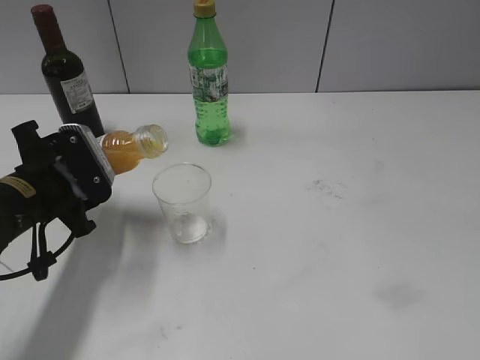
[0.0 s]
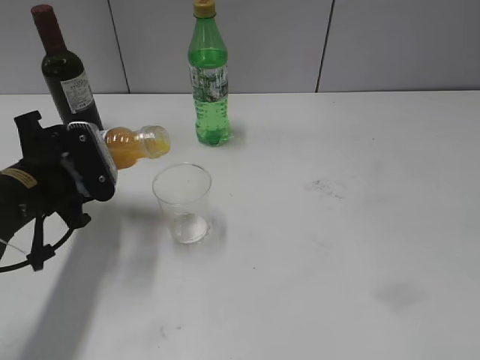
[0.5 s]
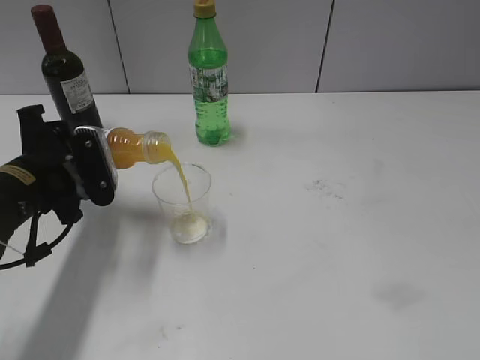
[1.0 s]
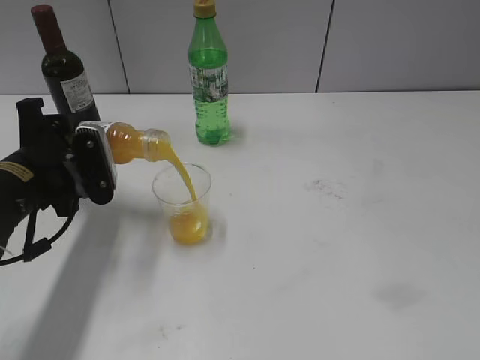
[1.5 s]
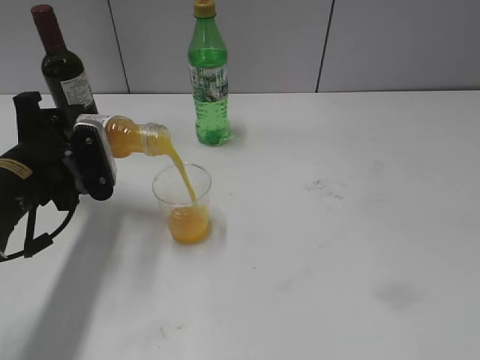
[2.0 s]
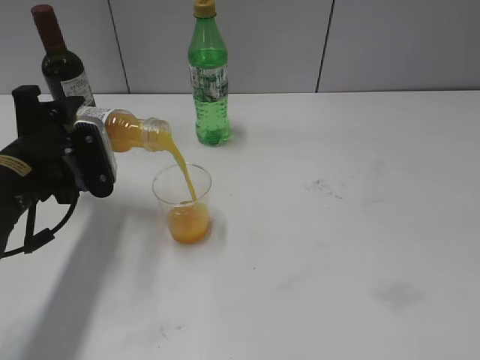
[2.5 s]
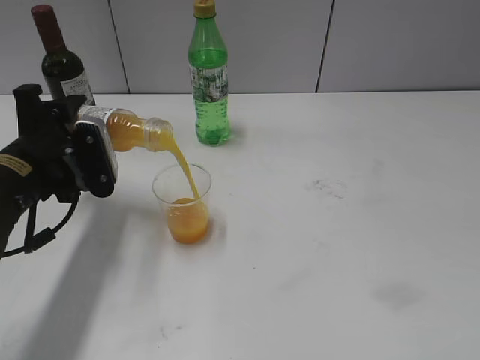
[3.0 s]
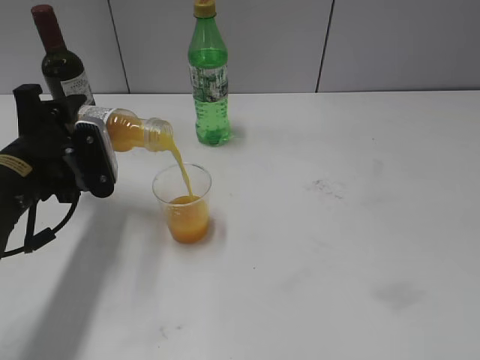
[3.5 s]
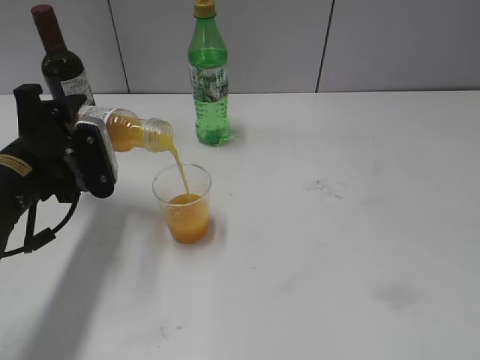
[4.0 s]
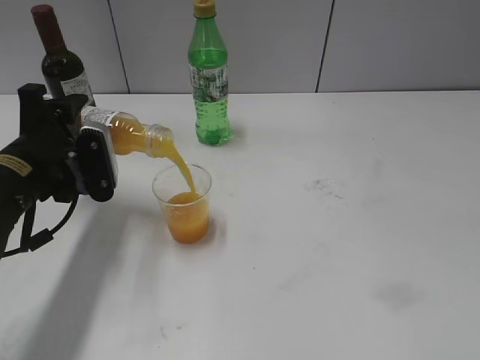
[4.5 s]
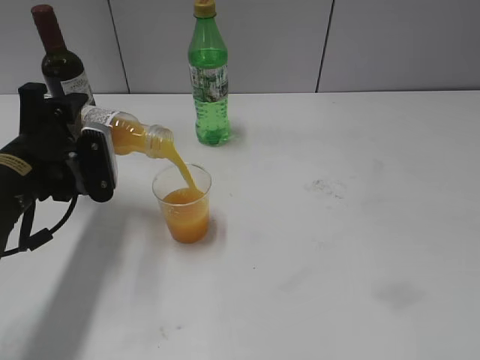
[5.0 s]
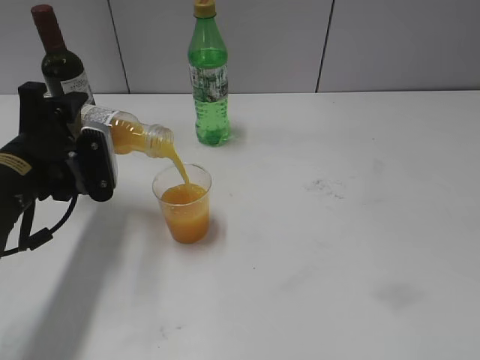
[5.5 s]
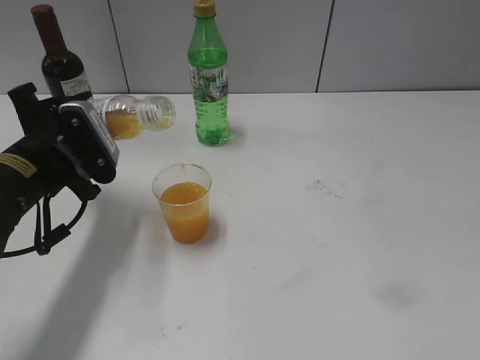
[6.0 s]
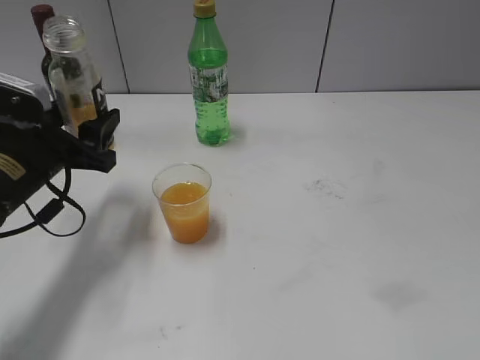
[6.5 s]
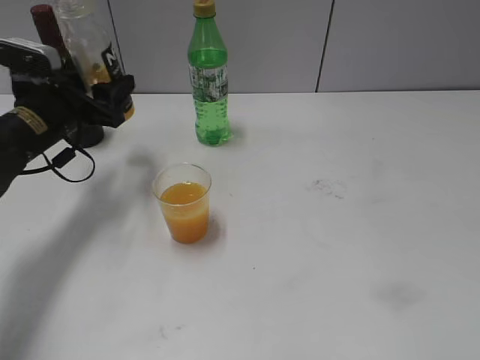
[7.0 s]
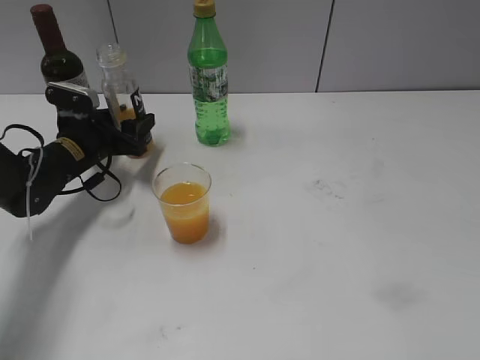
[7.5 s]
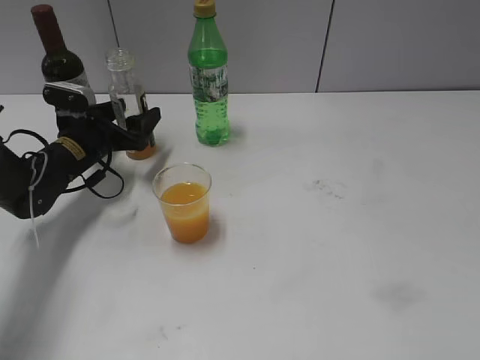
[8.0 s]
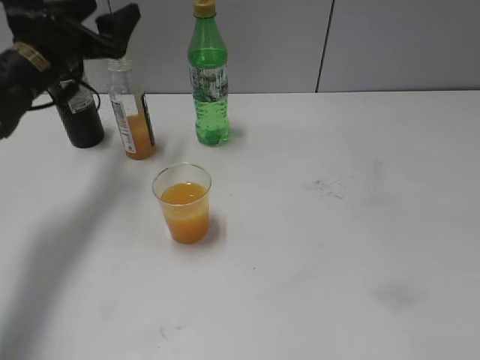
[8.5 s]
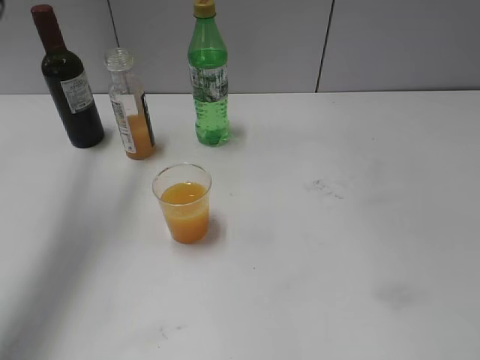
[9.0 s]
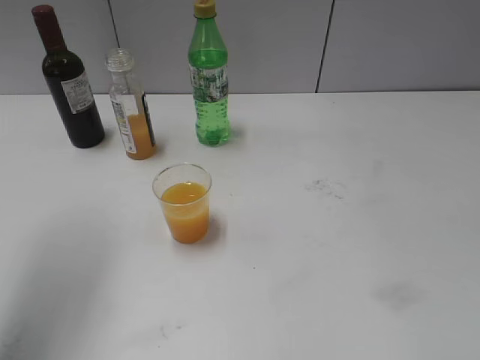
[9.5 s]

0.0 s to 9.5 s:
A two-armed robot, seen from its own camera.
Step, 0.0 to 6.0 s: Pour the orange juice from bottle to cup with left gripper.
Step, 6.5 to 8.0 s: Place the orange juice bottle on the table with left gripper.
2.0 to 4.0 s: Both grippers stay put.
4.0 to 5.5 s: There are only small adjustments of the grippers.
5.5 to 7.5 s: The left gripper is displaced forward and downward by approximately 15 cm.
7.5 to 9.5 s: The left gripper heads upward and backward, covering roughly 35 cm.

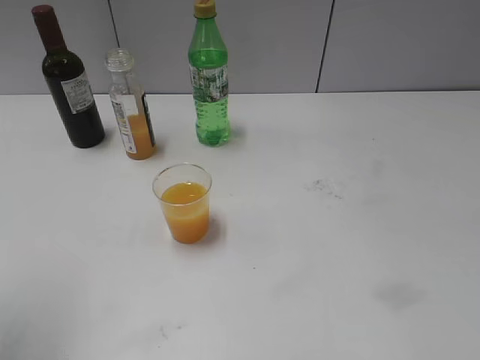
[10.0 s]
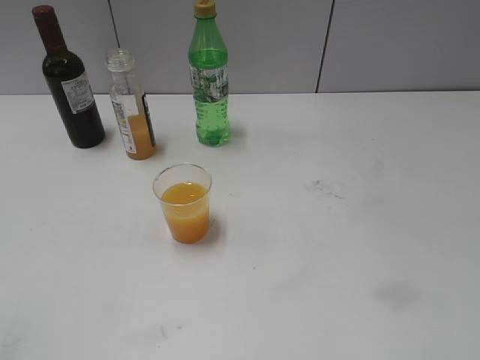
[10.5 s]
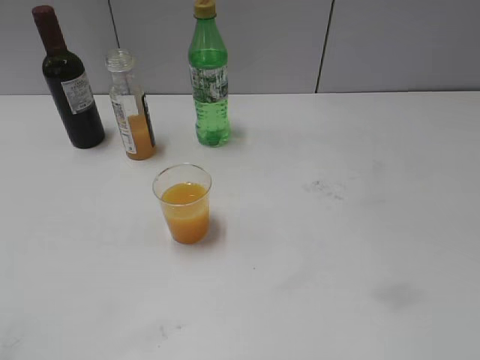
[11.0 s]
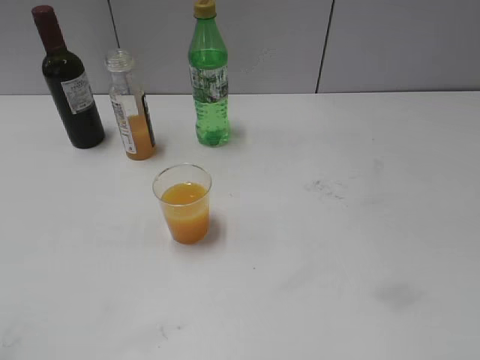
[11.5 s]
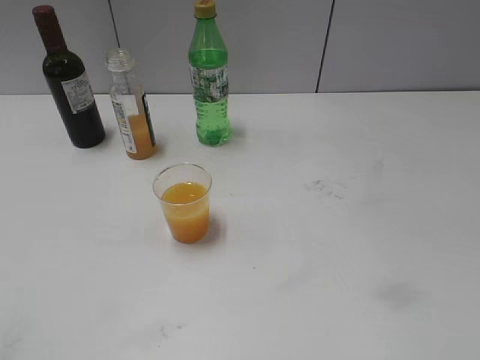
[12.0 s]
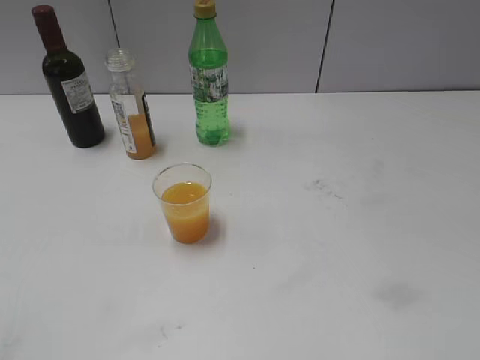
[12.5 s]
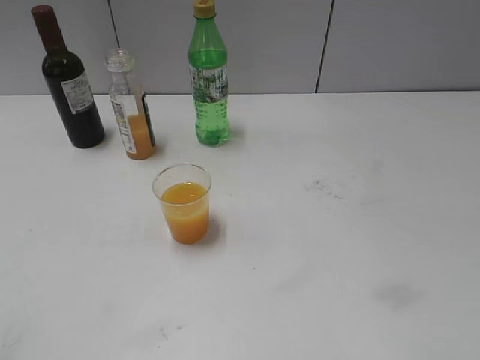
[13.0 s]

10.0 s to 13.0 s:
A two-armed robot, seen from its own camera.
10.0 to 11.5 s: The left gripper moves backward and downward, about 20 cm.
11.5 to 13.0 s: Both grippers stay put.

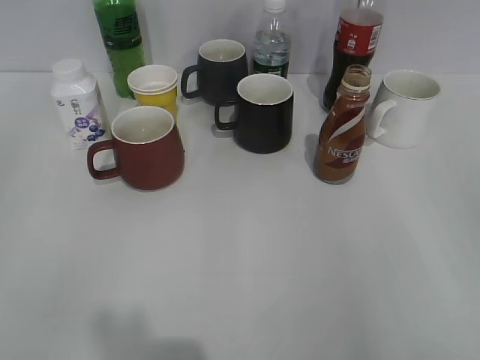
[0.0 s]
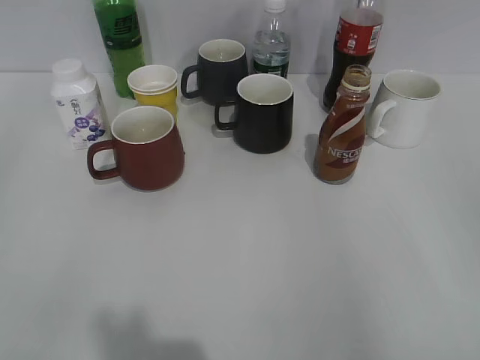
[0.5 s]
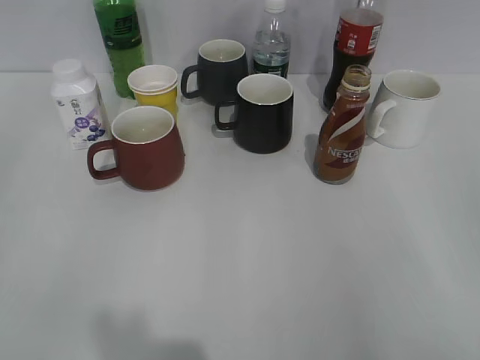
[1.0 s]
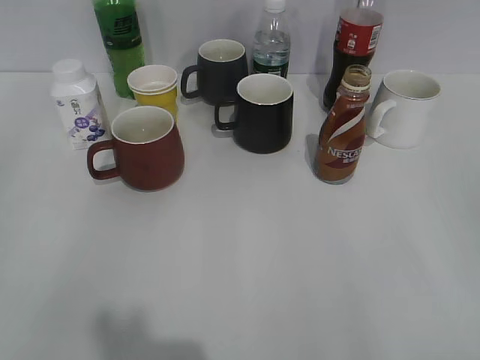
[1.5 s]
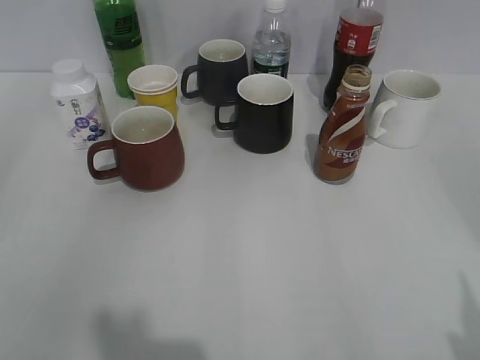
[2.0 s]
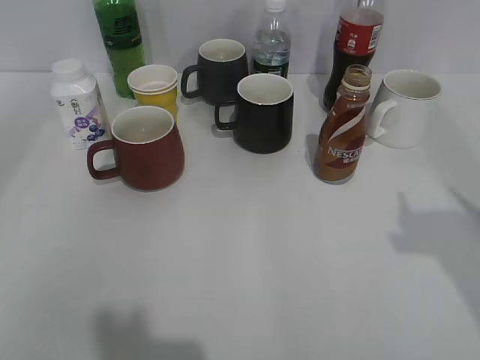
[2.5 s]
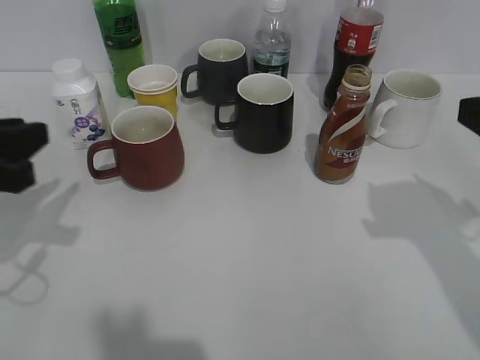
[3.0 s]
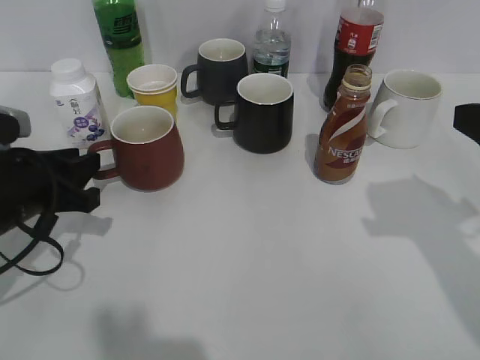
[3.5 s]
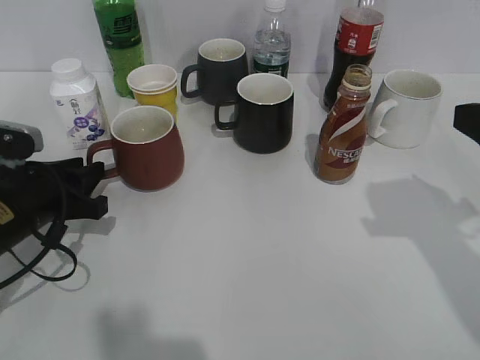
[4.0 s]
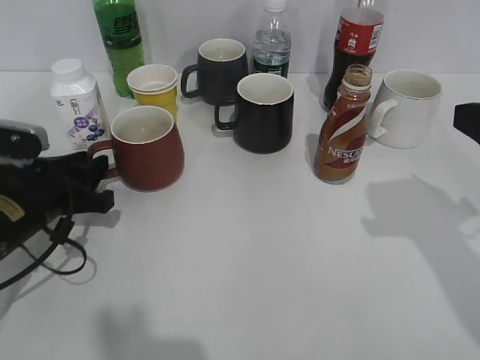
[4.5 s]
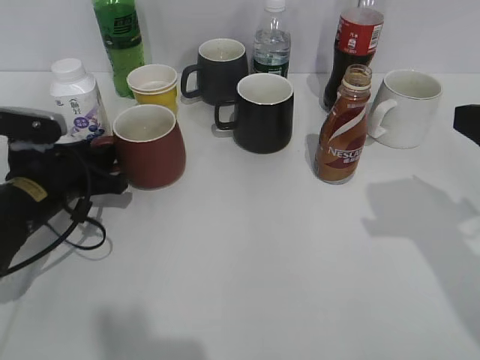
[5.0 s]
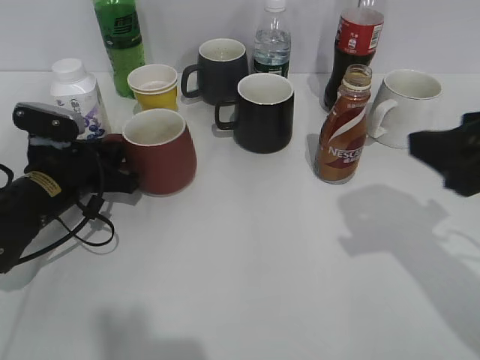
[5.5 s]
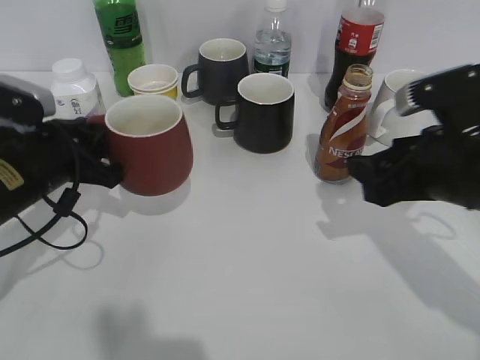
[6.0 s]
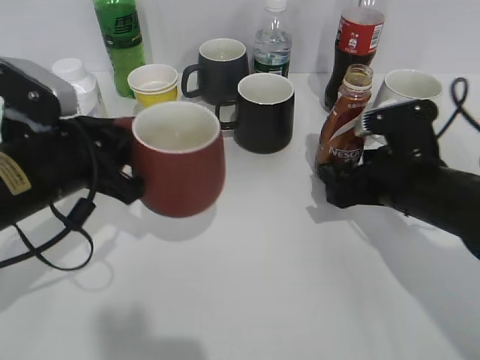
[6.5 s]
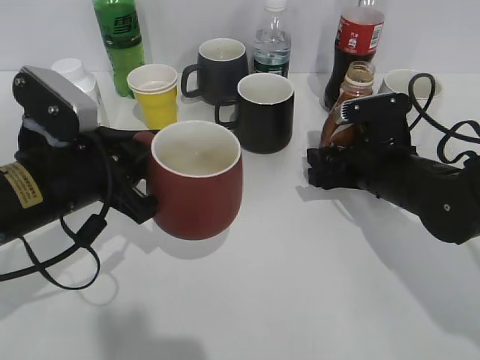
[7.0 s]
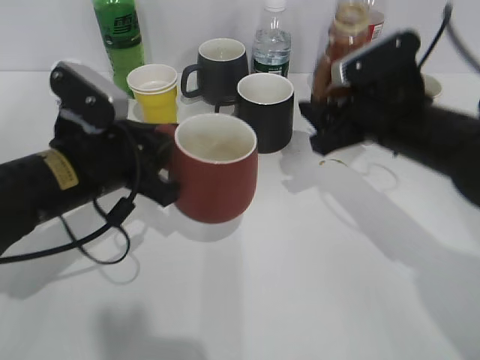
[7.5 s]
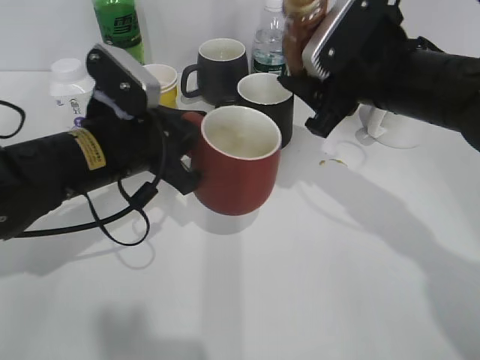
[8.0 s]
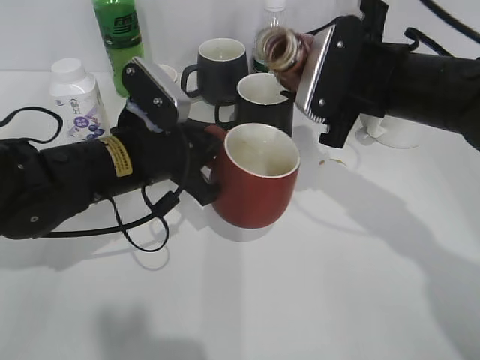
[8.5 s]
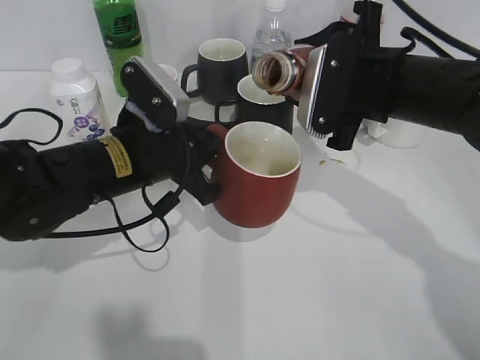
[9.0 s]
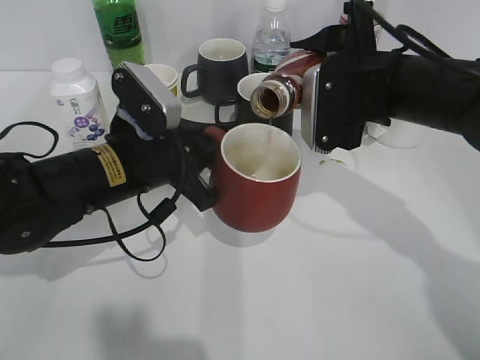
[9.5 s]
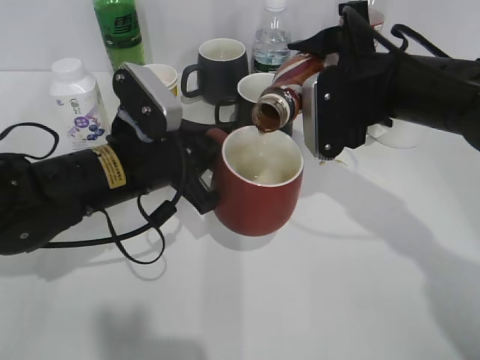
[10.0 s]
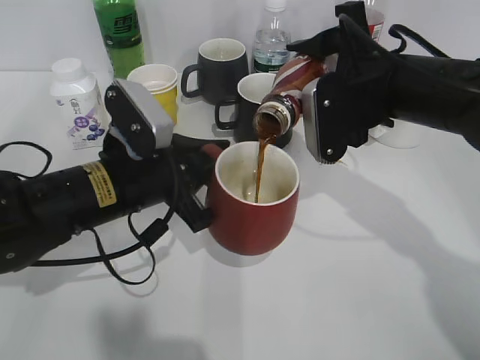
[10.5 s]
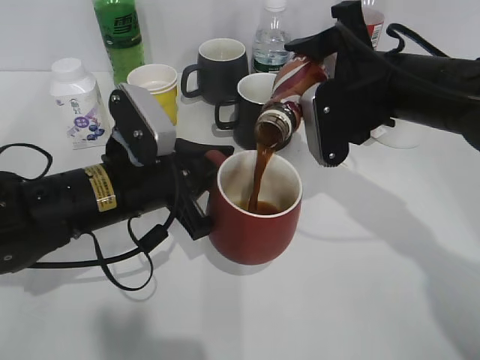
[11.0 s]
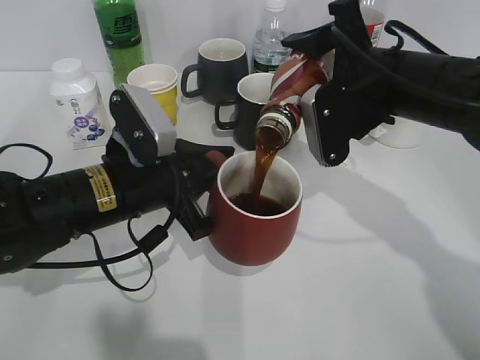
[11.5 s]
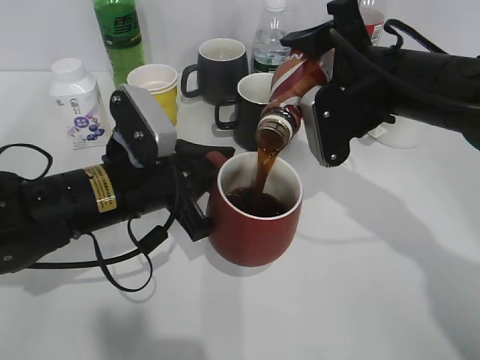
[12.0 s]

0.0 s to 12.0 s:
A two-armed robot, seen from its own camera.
Step, 2.0 to 5.0 s: Grasp the red cup with left gripper.
Step, 5.5 to 6.5 s: Grasp the bottle with coffee with right gripper.
2.0 to 4.0 s: The right gripper heads forward, covering some 20 cm. Meanwhile the left gripper heads forward, downward and to the right, covering roughly 30 cm.
4.0 to 6.0 s: The right gripper heads downward and to the left, covering some 10 cm, while the left gripper closes.
6.0 to 8.0 s: The left gripper is displaced to the right by about 10 cm, while the right gripper travels forward and to the left by approximately 10 cm, reaches roughly 10 cm downward, then returns, and opens, then closes once more.

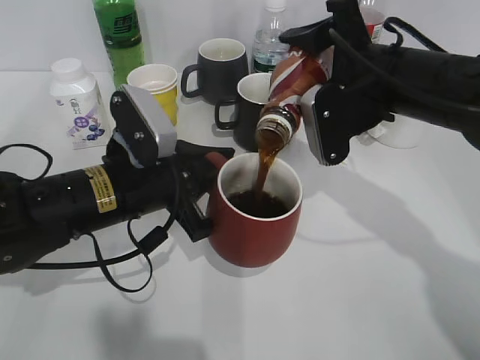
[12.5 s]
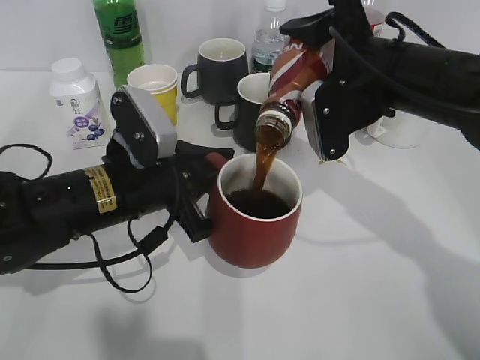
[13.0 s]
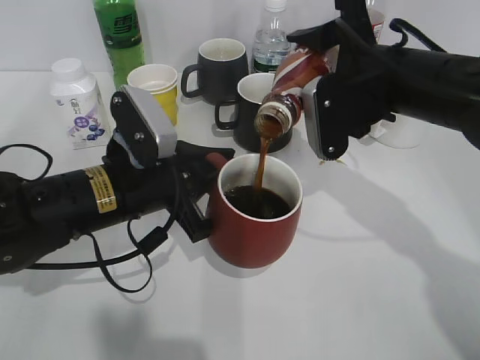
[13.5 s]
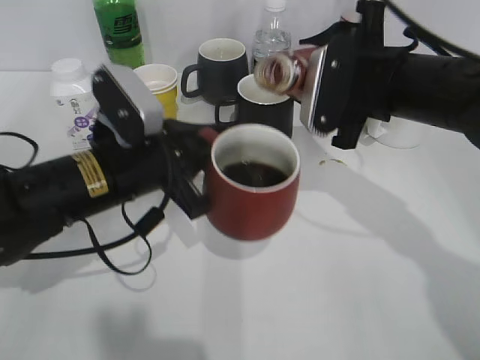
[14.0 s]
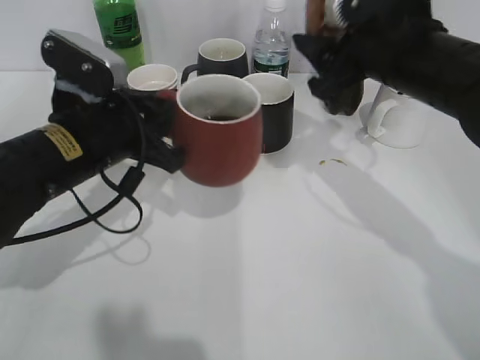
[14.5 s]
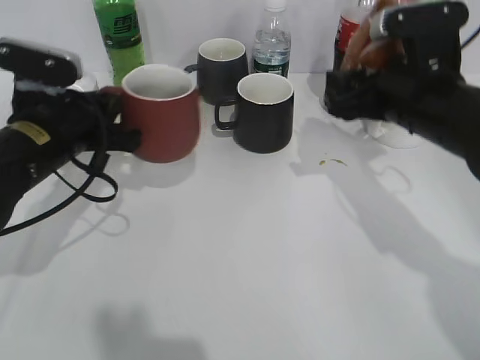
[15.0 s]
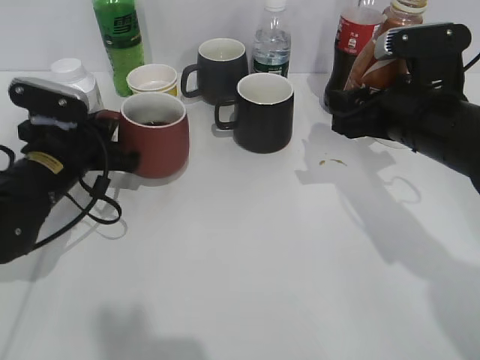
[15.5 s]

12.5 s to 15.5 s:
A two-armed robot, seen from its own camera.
14.0 to 15.5 s: The right gripper ends up roughly 5 cm from where it was; the left gripper heads to the left and forward, covering some 10 cm.
